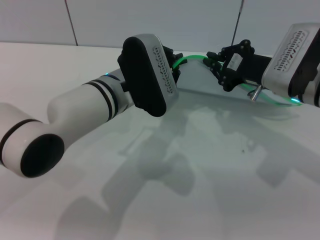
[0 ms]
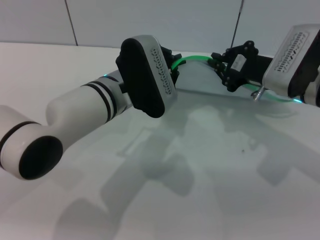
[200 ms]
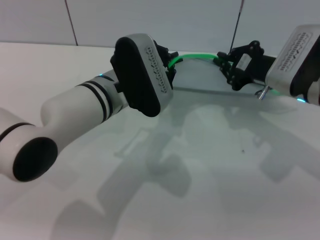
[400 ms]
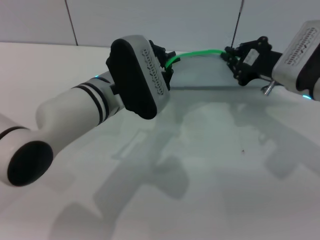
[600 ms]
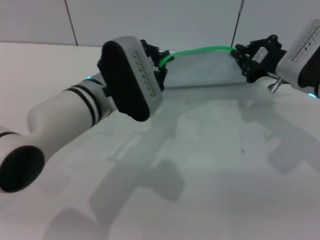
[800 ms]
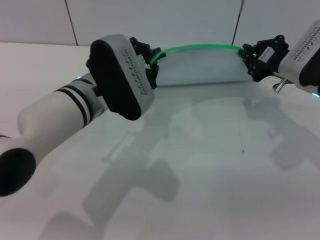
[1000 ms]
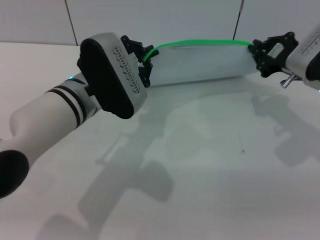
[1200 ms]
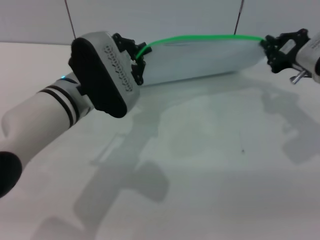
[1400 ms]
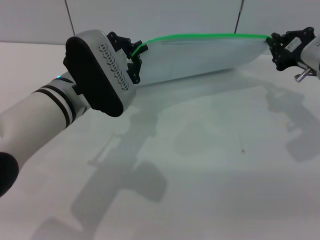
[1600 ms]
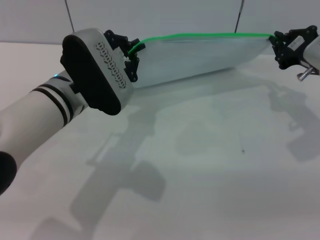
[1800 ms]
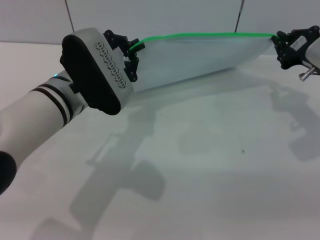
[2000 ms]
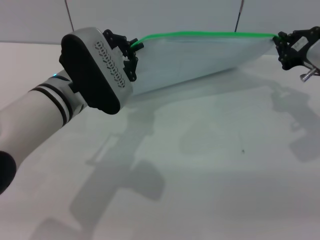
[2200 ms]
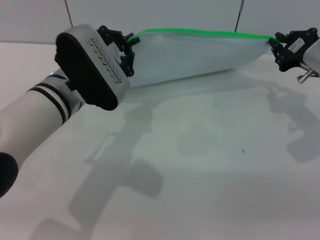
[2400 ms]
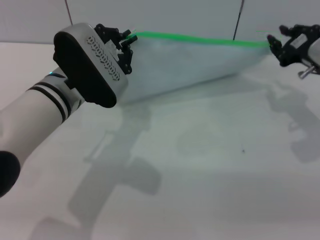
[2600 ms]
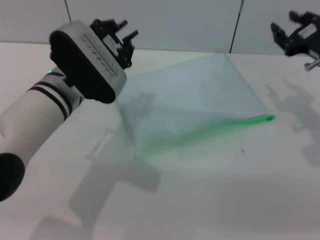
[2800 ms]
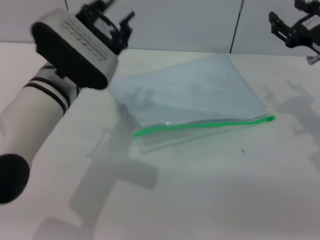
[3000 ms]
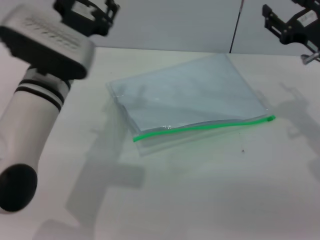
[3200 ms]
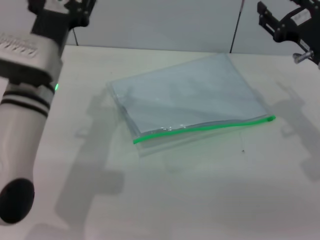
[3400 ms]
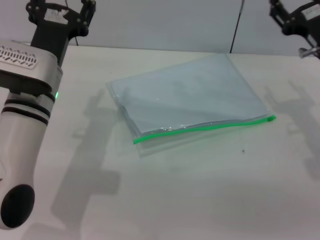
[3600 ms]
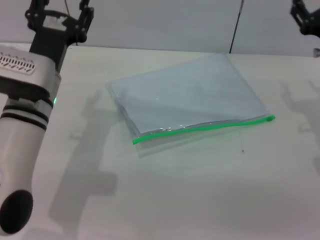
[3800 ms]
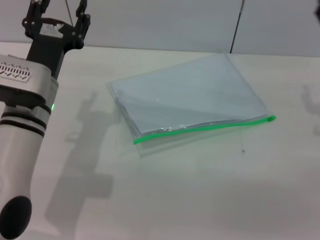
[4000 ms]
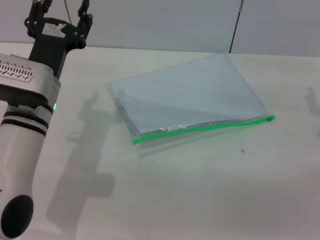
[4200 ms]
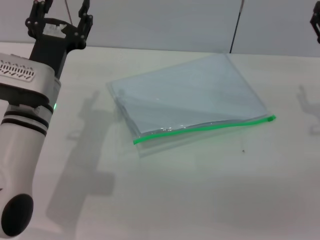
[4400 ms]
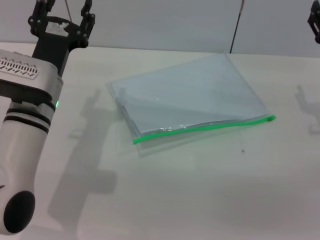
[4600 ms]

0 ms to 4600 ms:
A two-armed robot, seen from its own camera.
Step, 0 ms to 3000 ms: Pulling up the zipper on the transparent plastic bag with the right gripper to close it.
Step, 3400 ms to 3800 ms: Place the transparent plastic bag.
0 ms to 1600 ms: The left gripper shifts by roughly 5 cm, while the right gripper is displaced to the right by some 5 cm.
1600 ms to 3000 ms: The right gripper opens up.
3000 ms to 4600 ms: The left gripper changes place by some 5 cm, and opens its fingers.

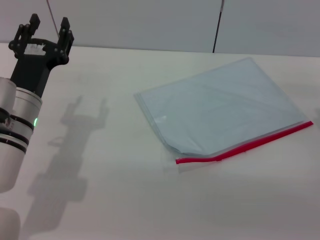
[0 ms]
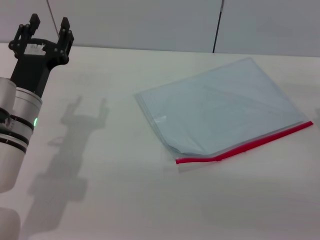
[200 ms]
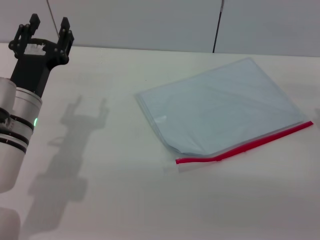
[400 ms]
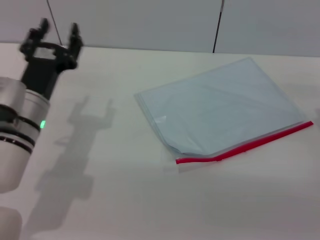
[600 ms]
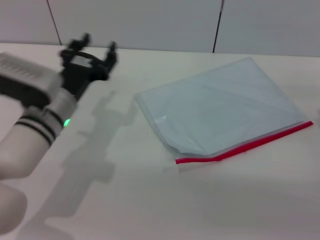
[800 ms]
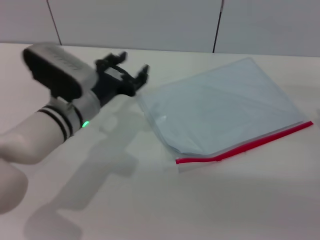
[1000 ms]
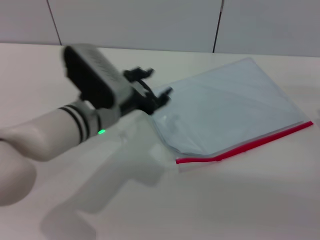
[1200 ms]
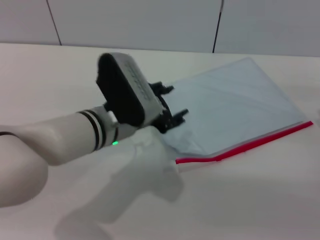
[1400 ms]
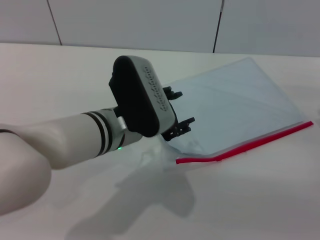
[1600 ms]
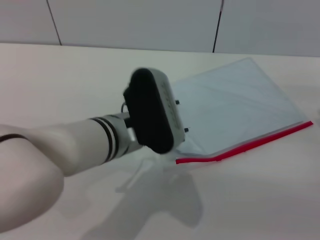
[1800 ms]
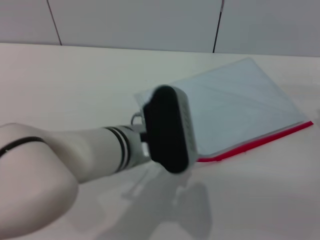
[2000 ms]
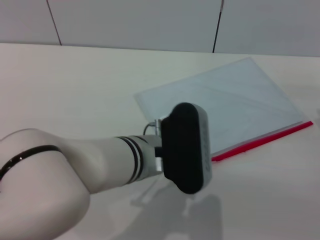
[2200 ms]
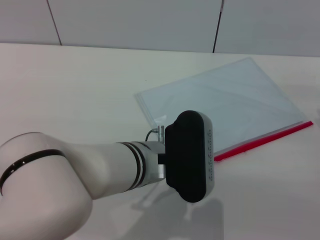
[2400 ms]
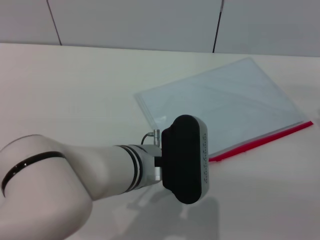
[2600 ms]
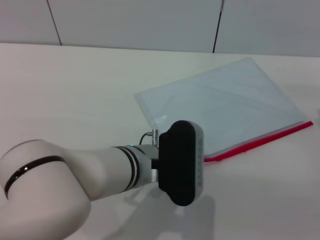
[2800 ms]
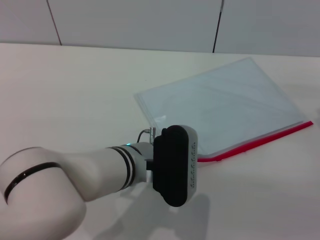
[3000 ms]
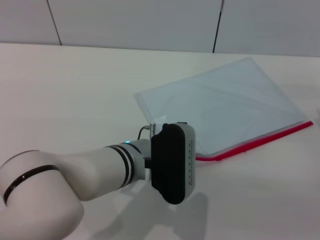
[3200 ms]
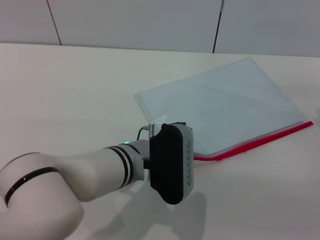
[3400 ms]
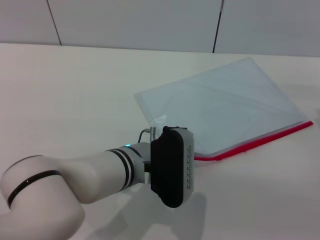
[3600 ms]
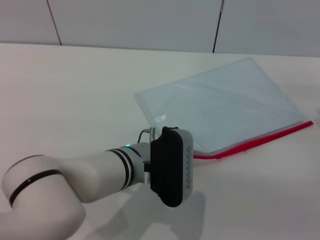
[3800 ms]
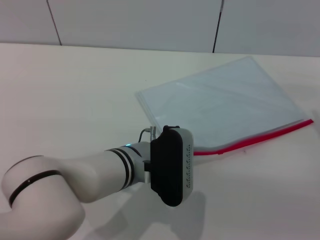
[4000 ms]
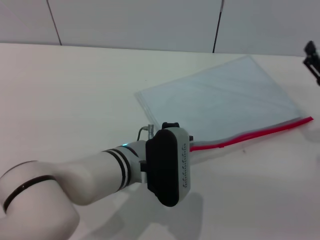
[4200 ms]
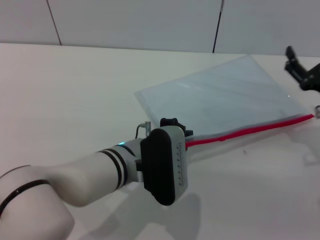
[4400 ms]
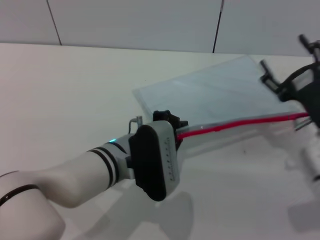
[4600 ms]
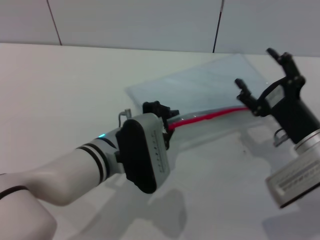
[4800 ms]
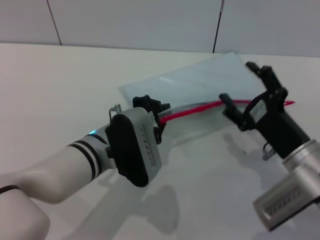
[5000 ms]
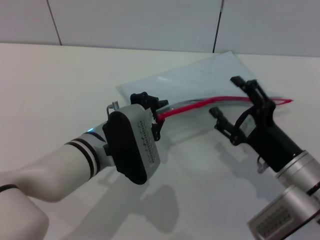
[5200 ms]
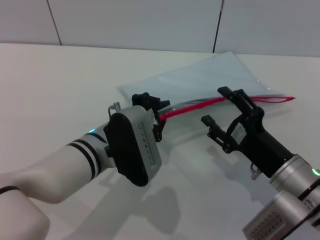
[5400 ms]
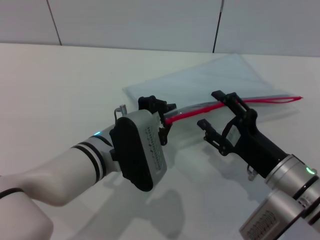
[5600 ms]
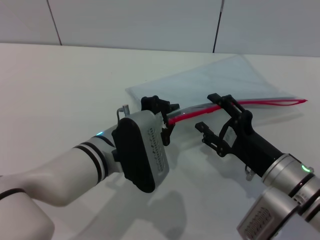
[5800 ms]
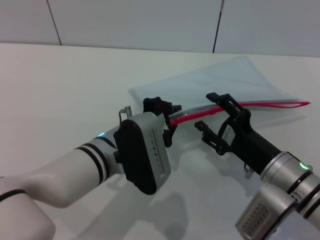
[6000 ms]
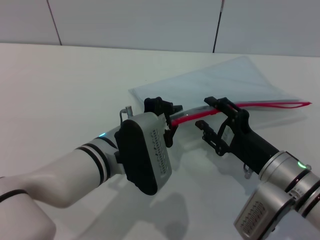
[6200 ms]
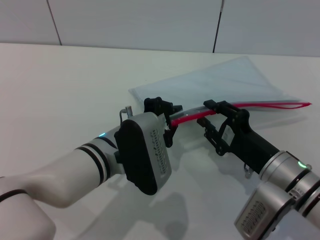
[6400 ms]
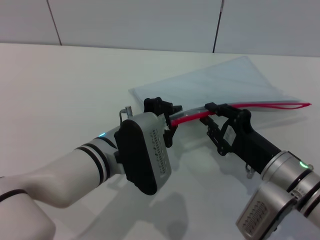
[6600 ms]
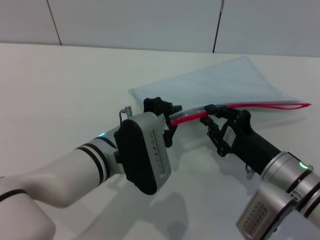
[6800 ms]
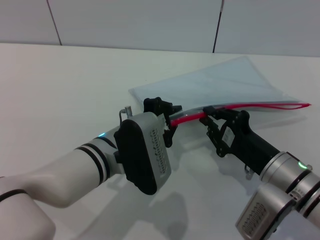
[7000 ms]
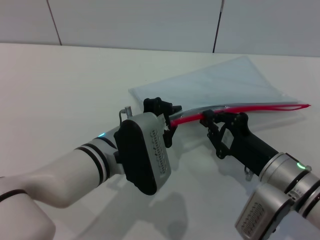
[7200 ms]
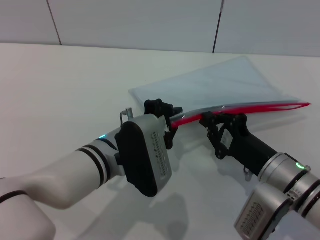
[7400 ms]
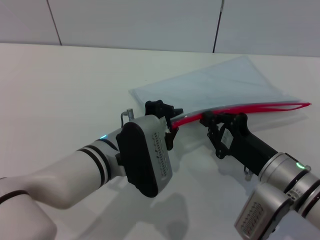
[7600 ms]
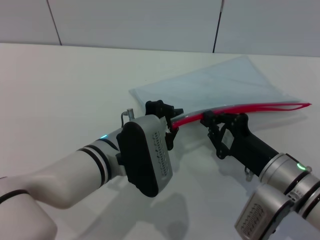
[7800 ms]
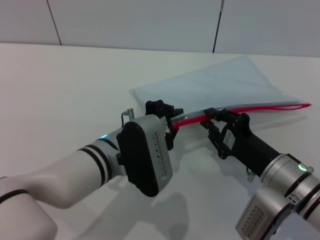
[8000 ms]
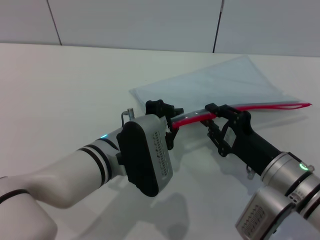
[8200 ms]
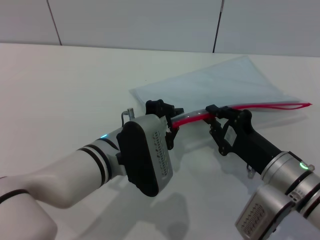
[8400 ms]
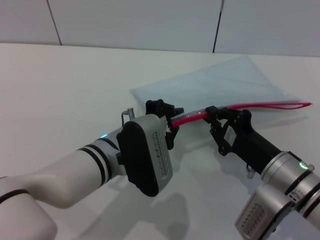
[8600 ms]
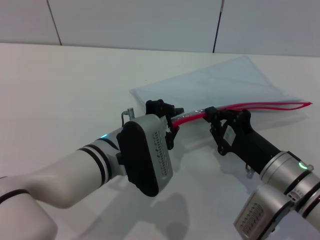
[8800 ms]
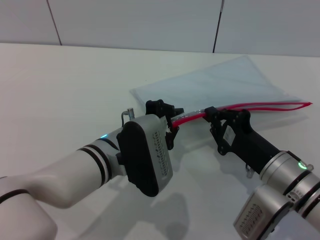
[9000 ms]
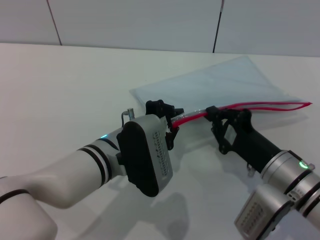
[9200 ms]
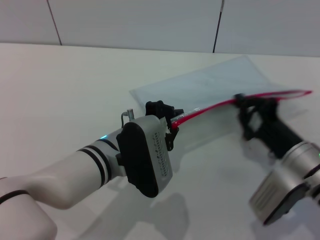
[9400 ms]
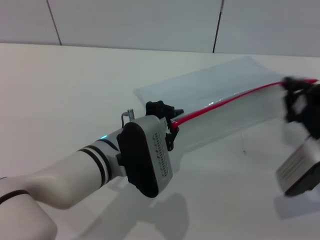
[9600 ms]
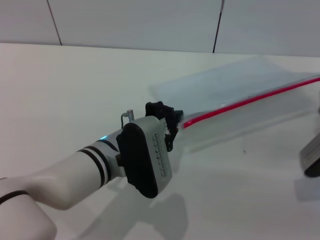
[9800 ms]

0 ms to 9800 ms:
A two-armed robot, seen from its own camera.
Step, 0 ms to 5400 ms: Pick up the transparent plastic bag with the left gripper.
0 ms to 1400 ms: The left gripper heads to the right, covering roughly 10 cm.
1400 ms to 2800 ms: The left gripper is displaced backward by roughly 5 cm.
2800 ms to 4200 ms: The left gripper closes up.
4200 ms to 5600 ms: The right gripper heads to the left and backward, covering some 10 cm.
5600 ms to 7000 ms: The right gripper closes up.
7000 ms to 8400 ms: Both grippers stay put.
8400 ms to 9800 ms: The right gripper shifts about 10 cm to the right and forward.

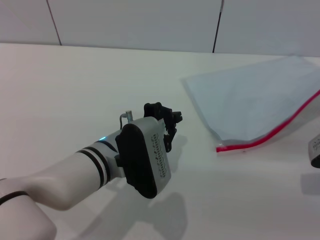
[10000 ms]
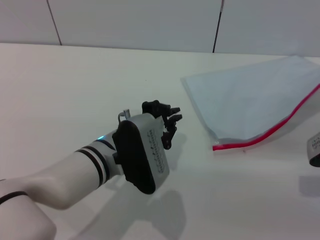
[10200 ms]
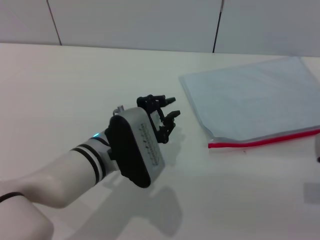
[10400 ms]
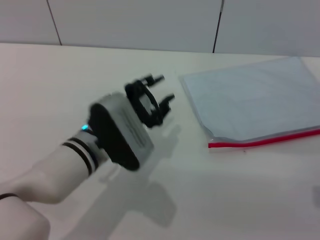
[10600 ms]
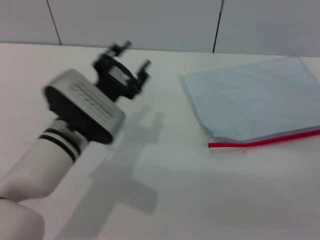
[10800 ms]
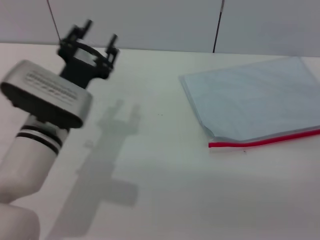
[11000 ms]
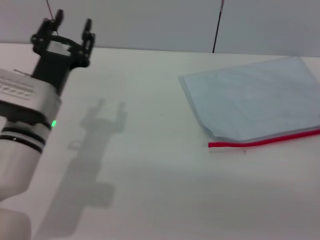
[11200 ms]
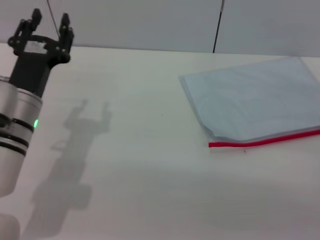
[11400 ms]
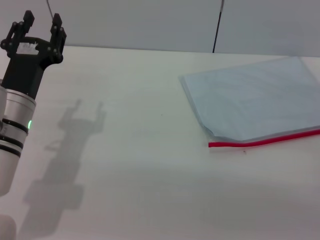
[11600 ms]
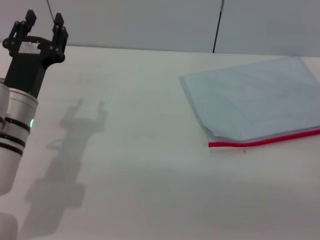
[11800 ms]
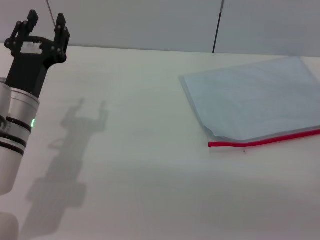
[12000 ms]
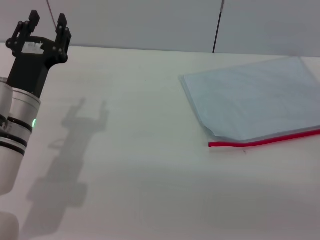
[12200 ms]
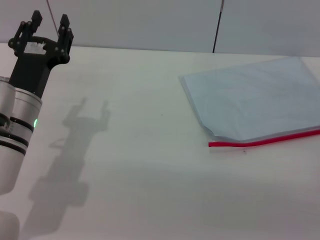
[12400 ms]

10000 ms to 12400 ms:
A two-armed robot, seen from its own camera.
Step, 10200 ms to 10600 ms: Place the transparent plastic bag.
10000 ms to 11200 ms: The left gripper goes approximately 10 cm to the left, and opens up. Meanwhile the right gripper opens up.
11200 ms to 12400 ms: There are only small adjustments of the grippers.

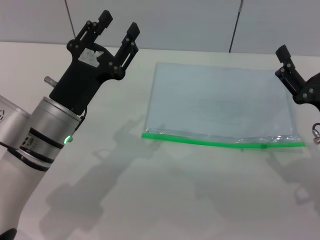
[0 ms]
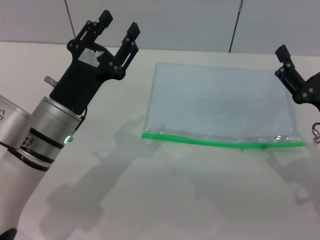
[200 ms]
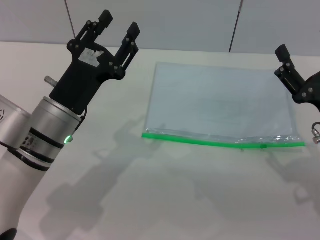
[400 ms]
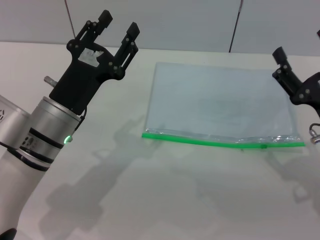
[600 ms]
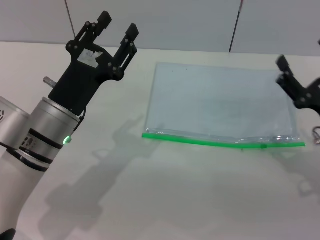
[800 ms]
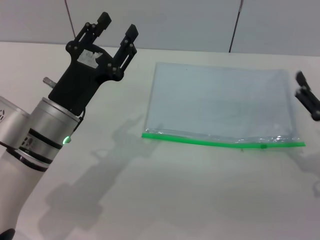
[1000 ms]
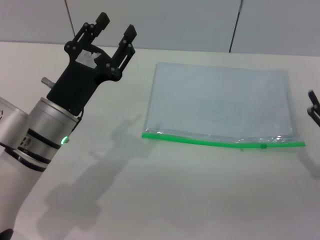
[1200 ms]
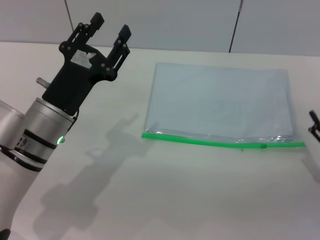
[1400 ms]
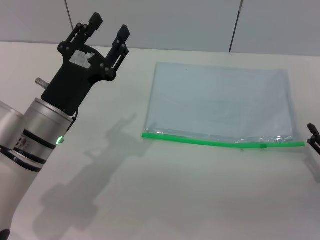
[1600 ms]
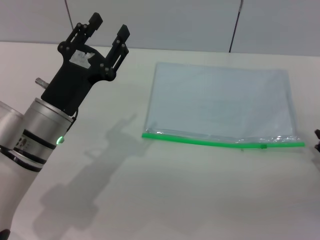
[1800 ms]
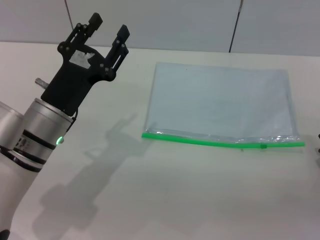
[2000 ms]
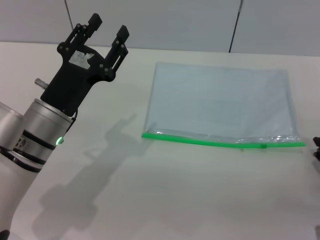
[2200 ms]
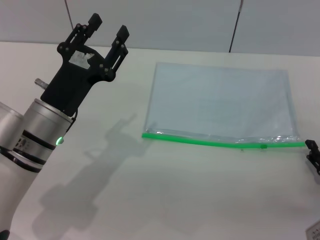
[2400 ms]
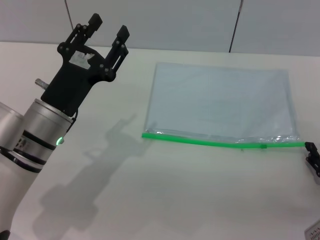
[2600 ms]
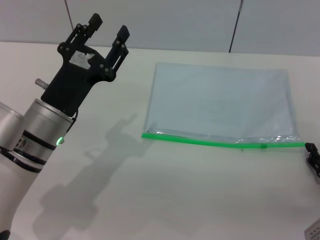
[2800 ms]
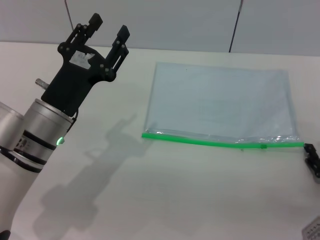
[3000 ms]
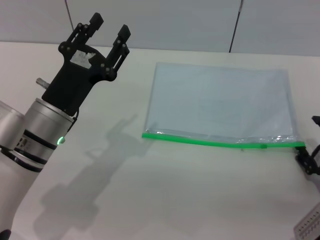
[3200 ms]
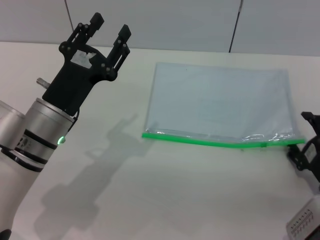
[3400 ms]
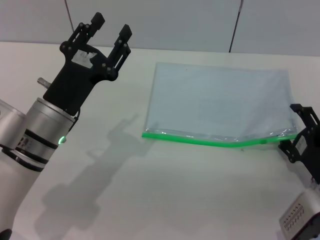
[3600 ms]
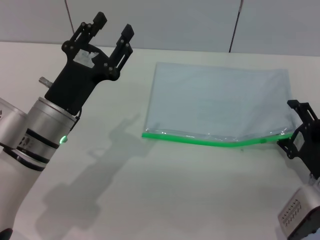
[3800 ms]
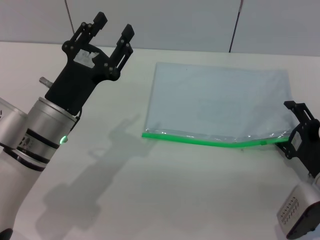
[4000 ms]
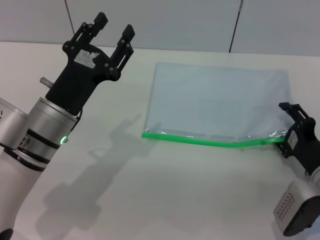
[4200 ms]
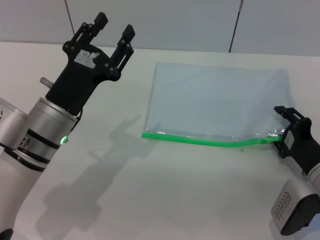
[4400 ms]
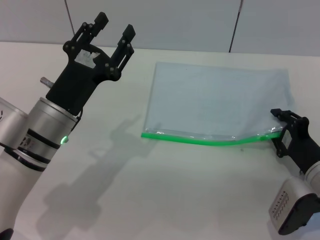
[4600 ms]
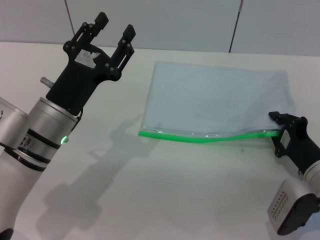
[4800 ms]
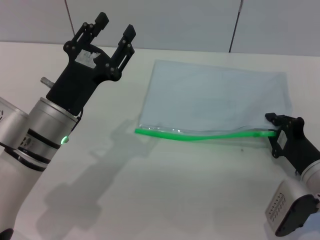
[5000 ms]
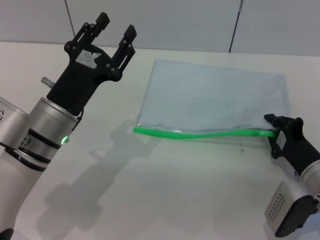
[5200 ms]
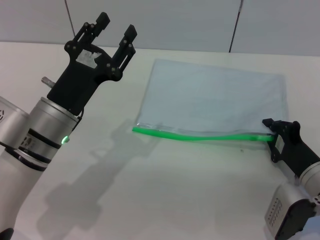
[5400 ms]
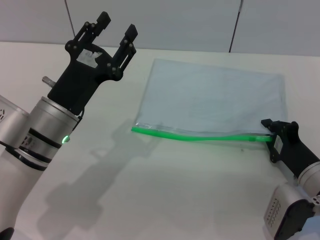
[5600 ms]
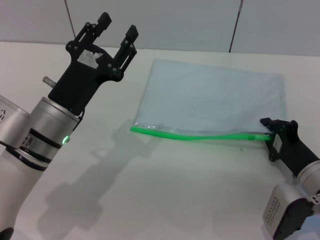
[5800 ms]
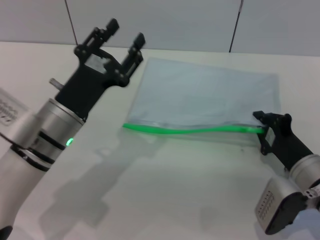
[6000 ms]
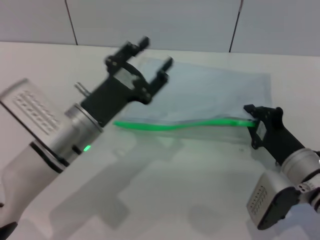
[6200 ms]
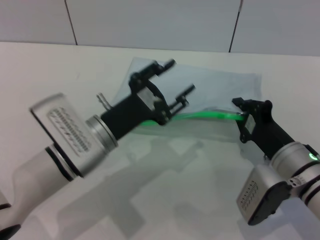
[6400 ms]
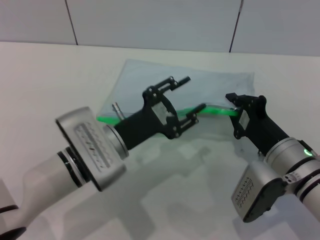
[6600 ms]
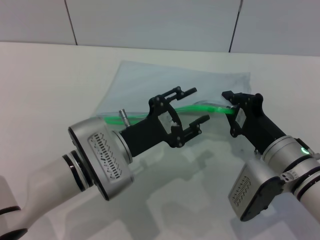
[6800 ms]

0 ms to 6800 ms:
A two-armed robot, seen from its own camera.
Step, 0 ms to 6000 ms: Pick up the transparent plastic bag with the right gripper.
0 ms to 1400 ms: The right gripper goes about 10 cm to the right and downward.
2800 ms to 4000 ms: The right gripper moves approximately 5 cm.
4000 ms to 5400 ms: The right gripper closes its fingers.
5400 ms to 6800 ms: The right gripper goes roughly 5 cm to the left, while the left gripper moves to the right, roughly 5 cm.
